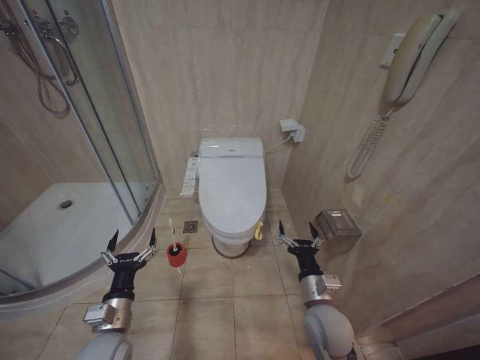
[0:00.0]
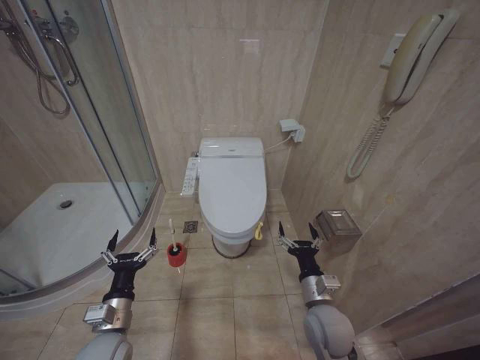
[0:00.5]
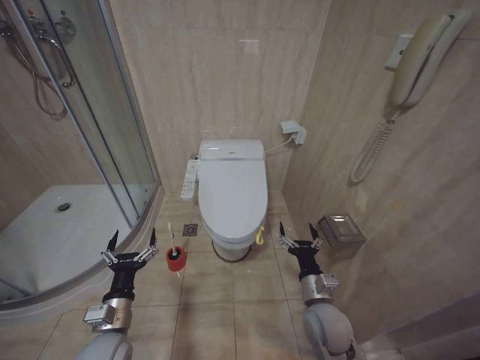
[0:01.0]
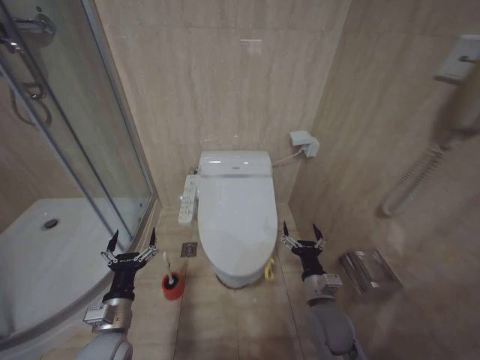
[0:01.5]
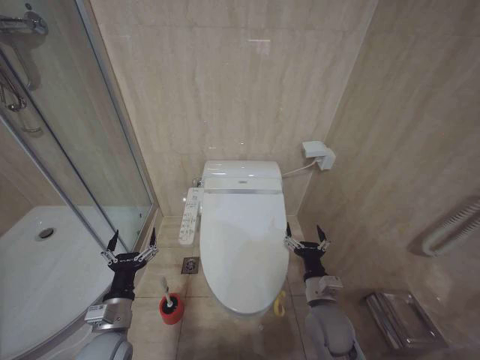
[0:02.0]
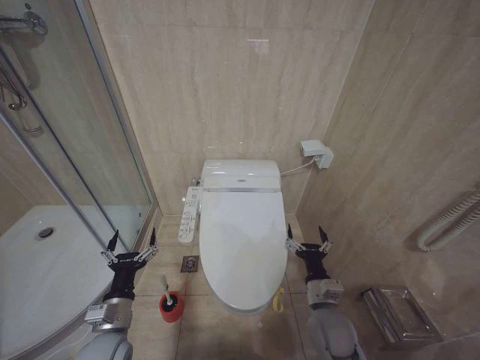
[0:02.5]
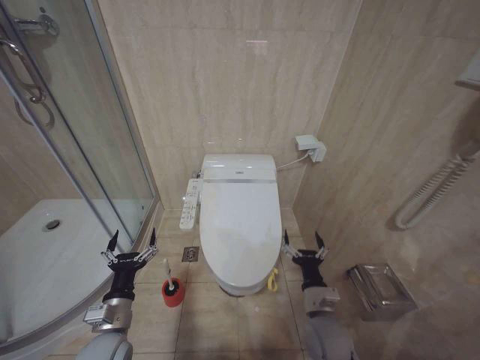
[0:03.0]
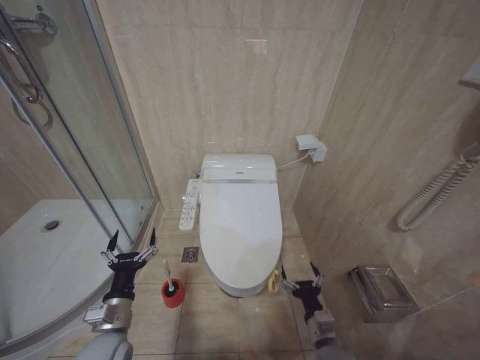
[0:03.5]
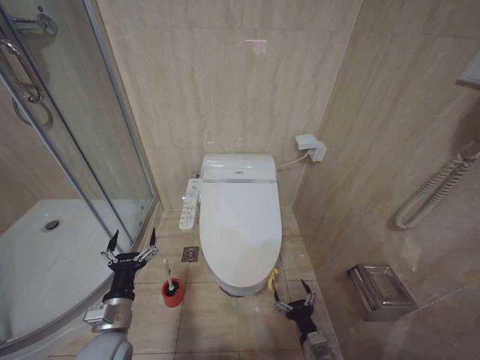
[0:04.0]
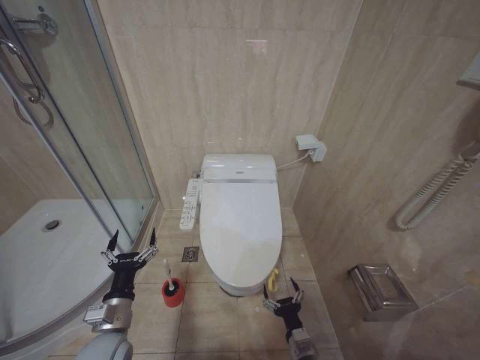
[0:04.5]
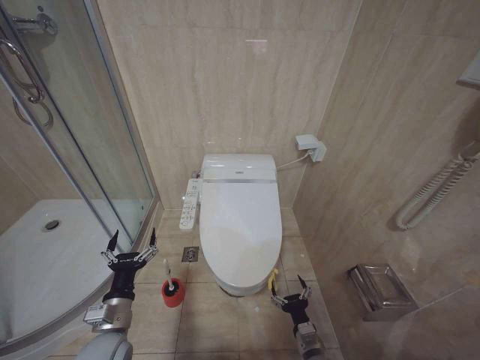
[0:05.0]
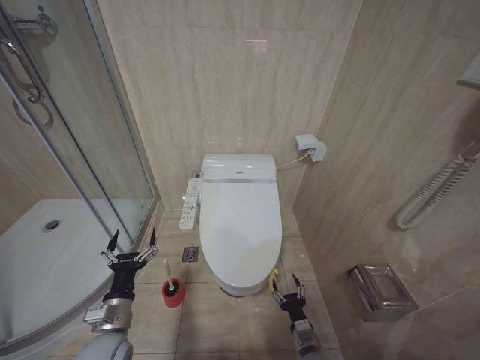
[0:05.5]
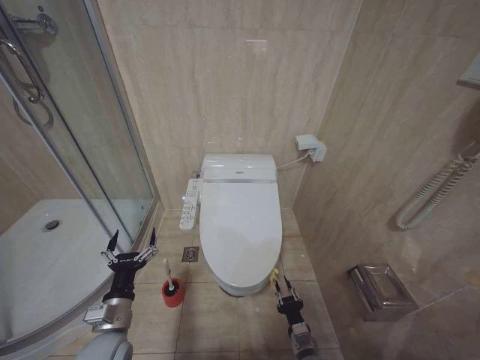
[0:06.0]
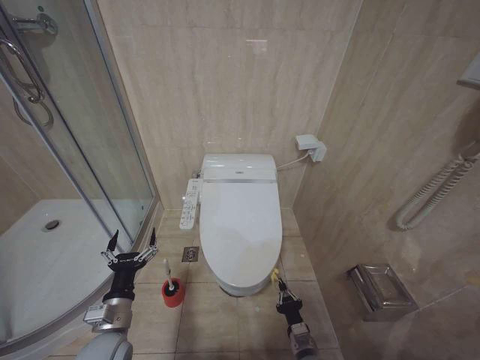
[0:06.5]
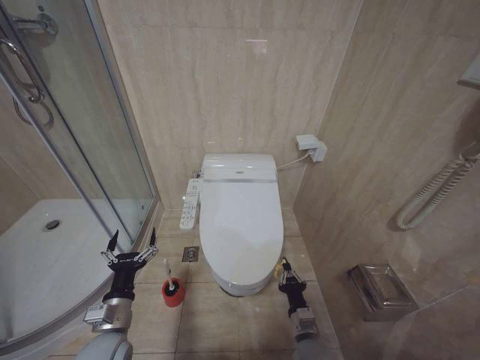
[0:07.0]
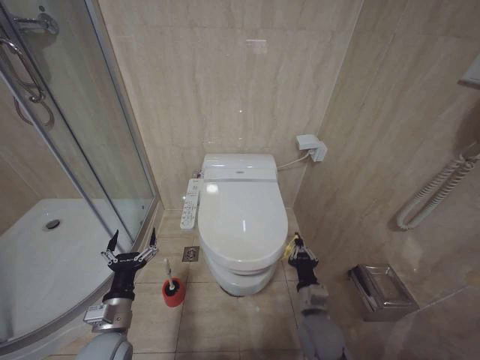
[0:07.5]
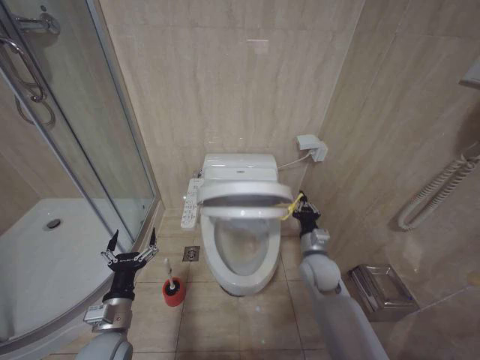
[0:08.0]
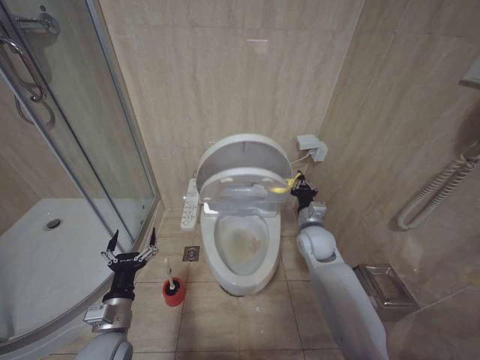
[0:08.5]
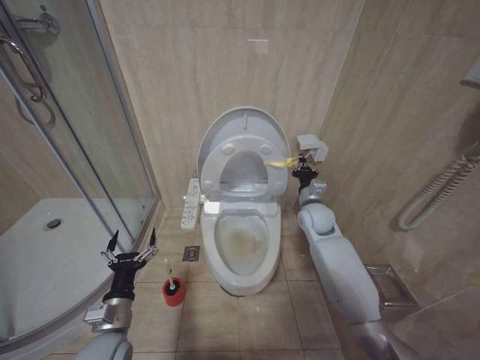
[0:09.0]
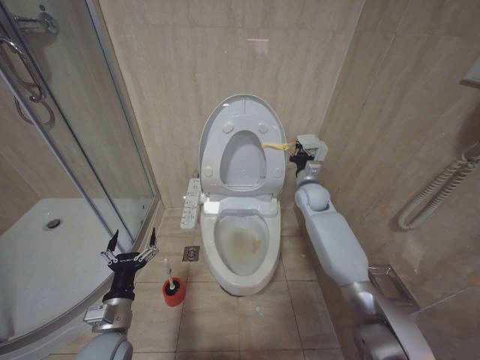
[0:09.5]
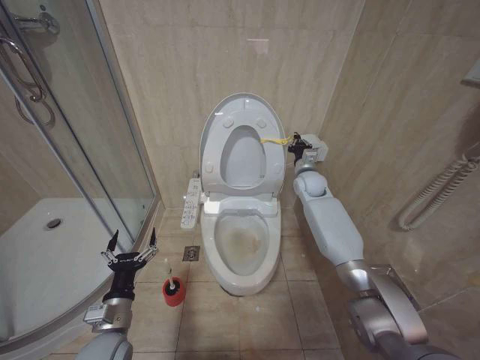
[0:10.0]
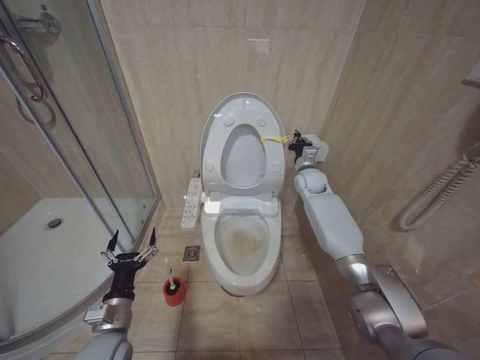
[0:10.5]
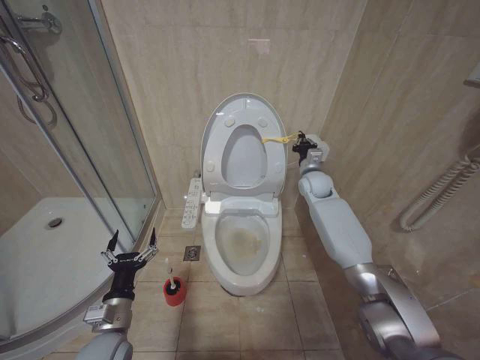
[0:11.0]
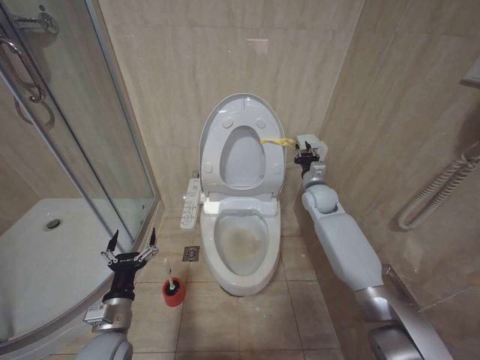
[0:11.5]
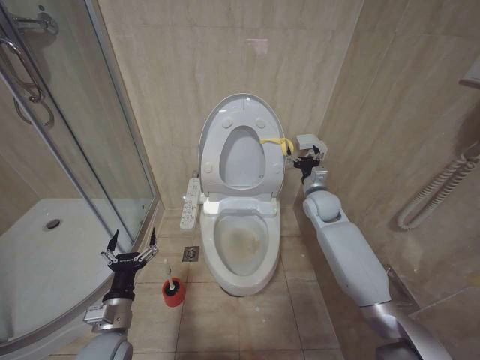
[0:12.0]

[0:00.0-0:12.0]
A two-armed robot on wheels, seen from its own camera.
Task of the whole recording: Open the toilet lid, clean the toilet bowl with a toilet brush, close the toilet lid, and flush.
2.0 to 4.0 s: The right gripper goes approximately 15 cm downward and backward.
4.0 to 6.0 s: The right gripper shifts by approximately 5 cm, and closes its fingers.
6.0 to 8.0 s: The right gripper shifts about 25 cm upward and forward, and closes its fingers.
8.0 to 10.0 s: The right gripper moves forward and upward, some 25 cm.
10.0 to 12.0 s: The right gripper goes roughly 5 cm backward, and opens.

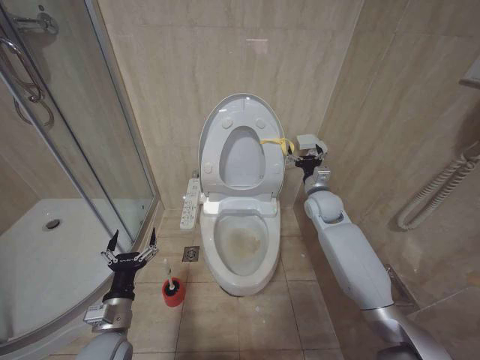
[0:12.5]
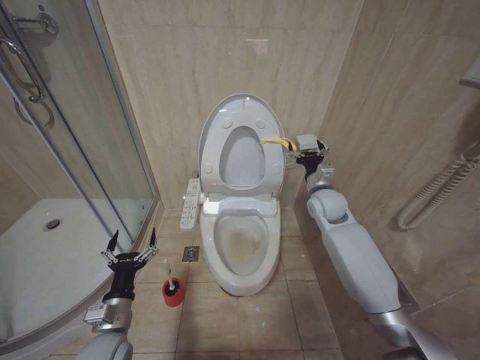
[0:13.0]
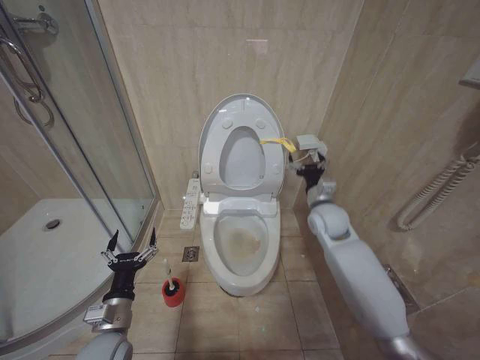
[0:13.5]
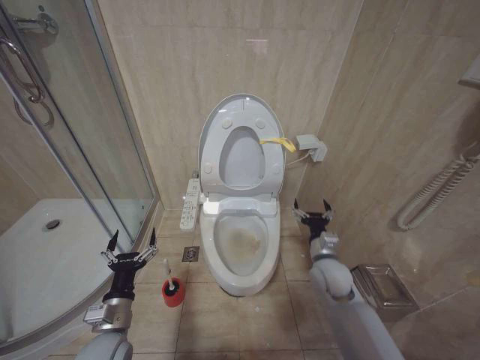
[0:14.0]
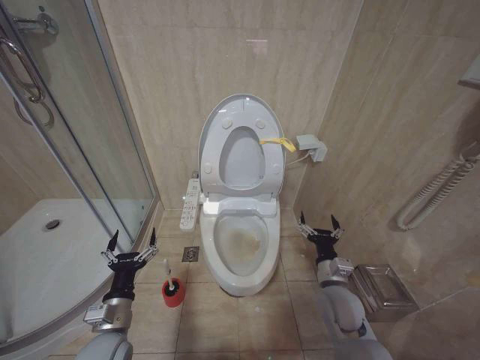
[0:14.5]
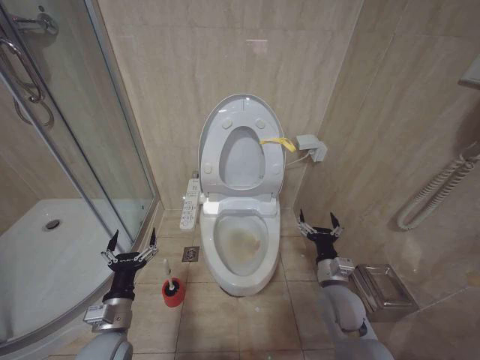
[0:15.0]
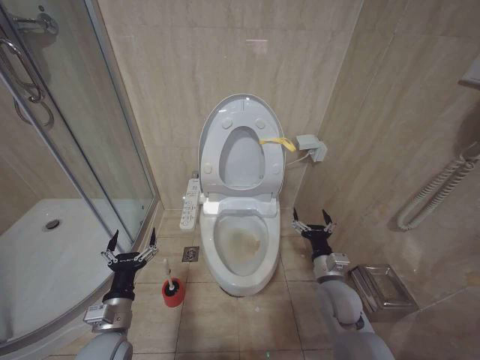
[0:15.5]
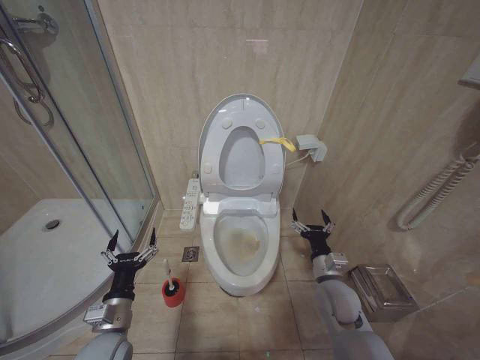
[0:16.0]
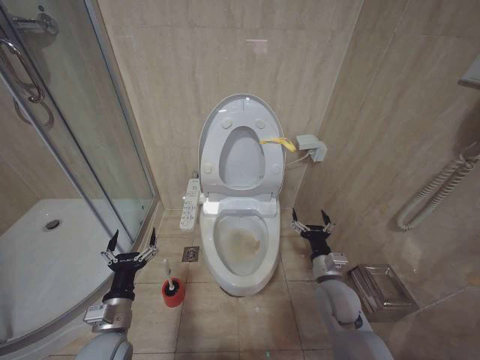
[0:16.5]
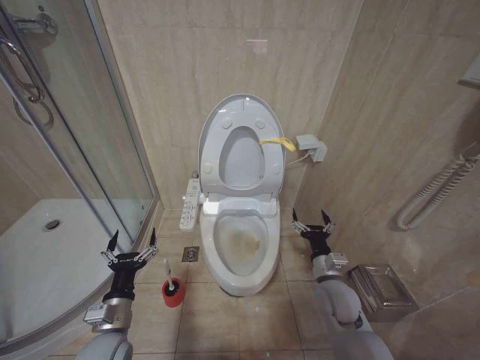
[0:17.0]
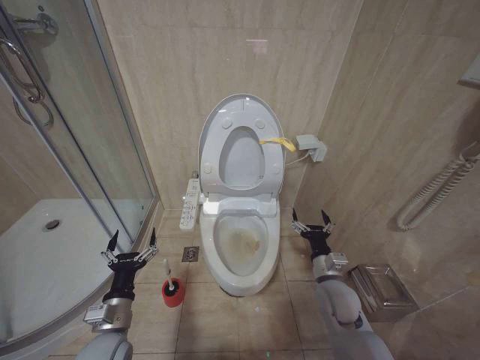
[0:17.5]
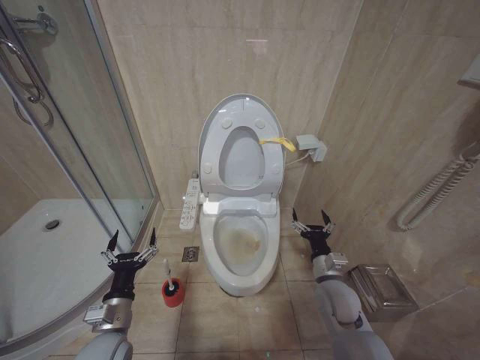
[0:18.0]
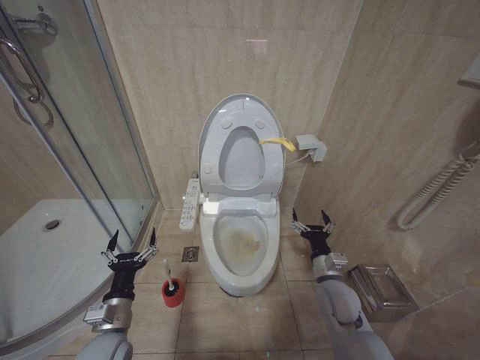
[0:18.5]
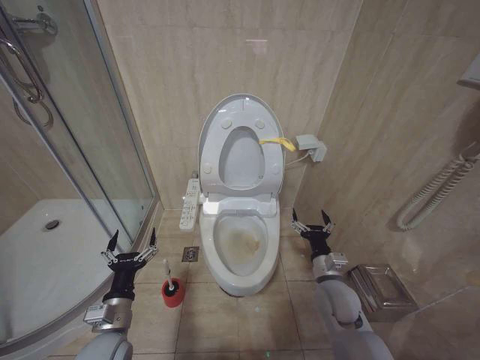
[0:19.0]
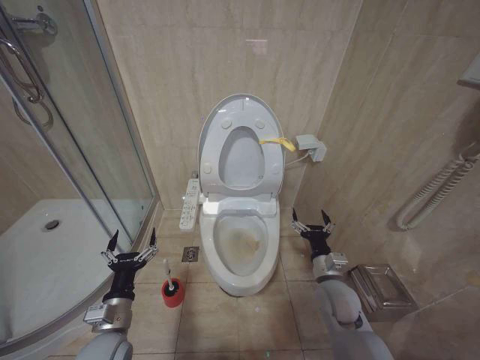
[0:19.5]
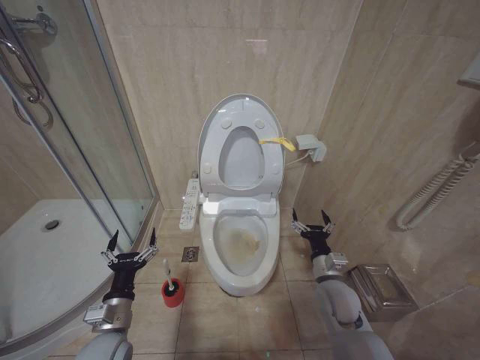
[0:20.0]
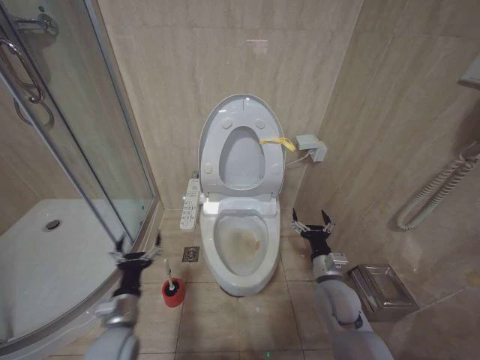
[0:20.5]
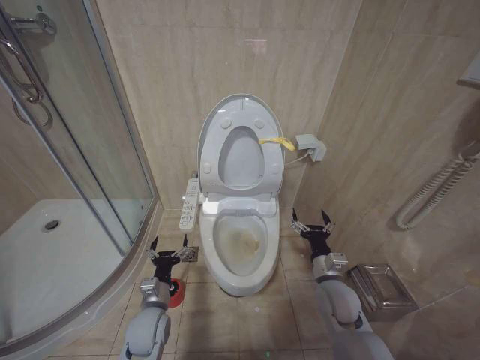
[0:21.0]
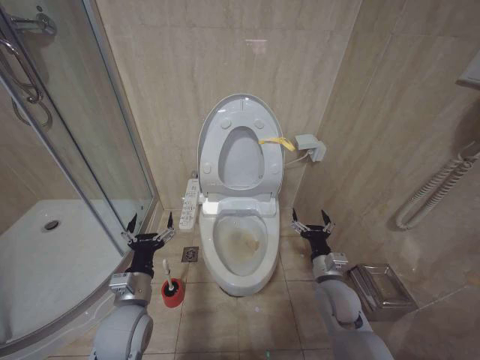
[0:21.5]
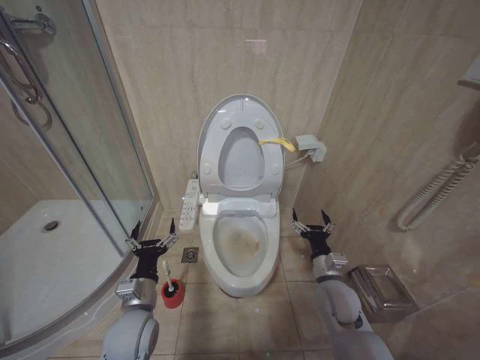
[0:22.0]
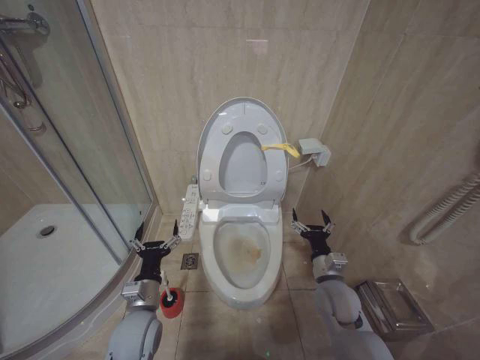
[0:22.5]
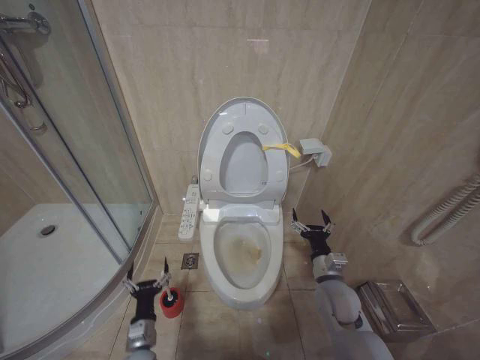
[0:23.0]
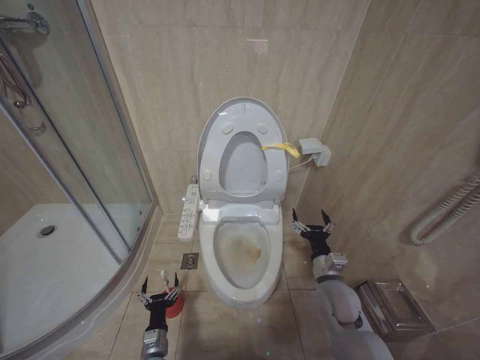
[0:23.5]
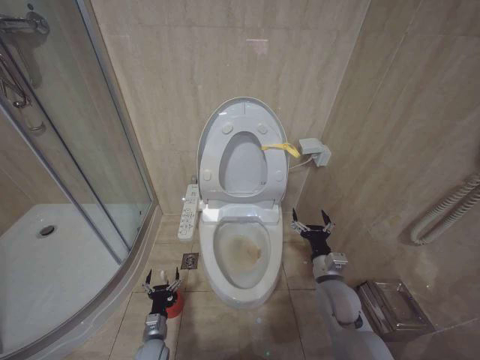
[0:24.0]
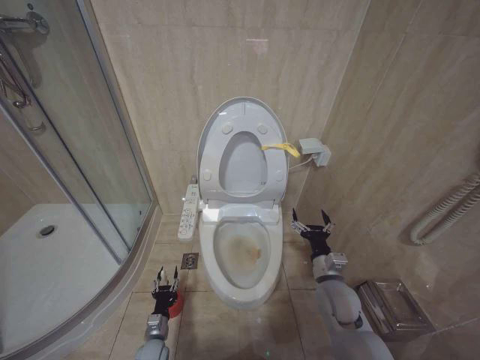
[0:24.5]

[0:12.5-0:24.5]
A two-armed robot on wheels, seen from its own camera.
Task of the whole recording: Open the toilet lid, clean the toilet bowl with a toilet brush, close the toilet lid, and flush.
12.5 to 14.5 s: The right gripper shifts about 25 cm backward and downward.
14.5 to 16.5 s: The grippers move only a little.
16.5 to 20.5 s: The two grippers keep their place.
20.5 to 22.5 s: The left gripper goes up and down, about 10 cm each way, reversing 2 times.
22.5 to 24.5 s: The left gripper shifts roughly 30 cm downward.

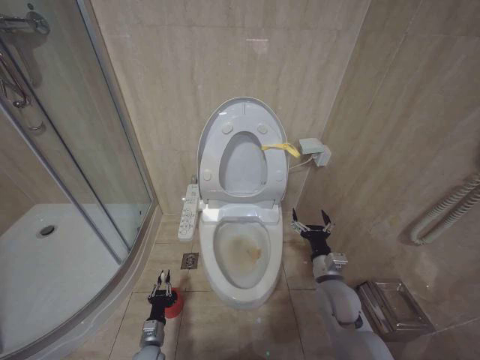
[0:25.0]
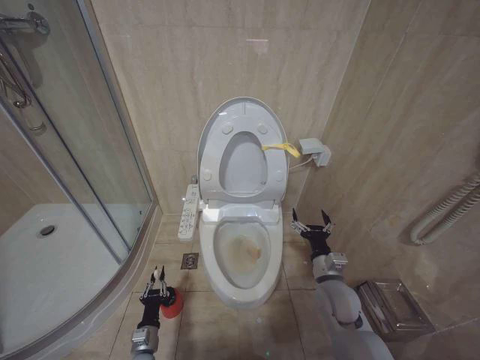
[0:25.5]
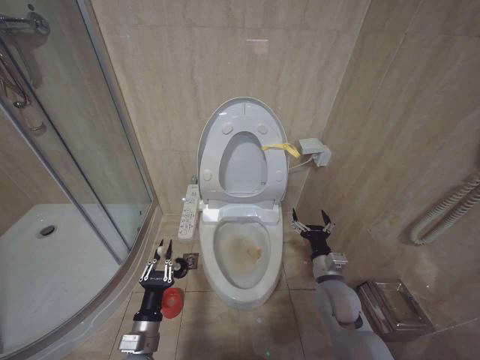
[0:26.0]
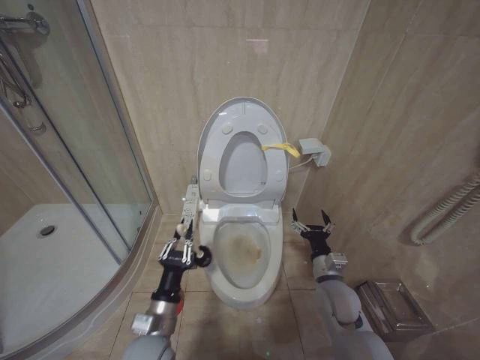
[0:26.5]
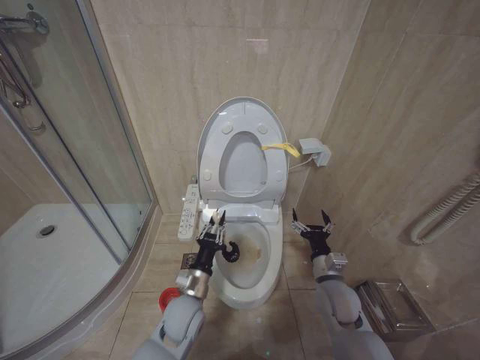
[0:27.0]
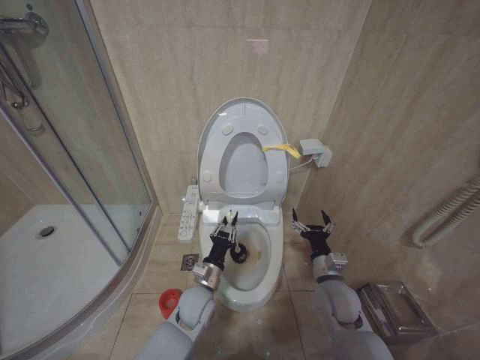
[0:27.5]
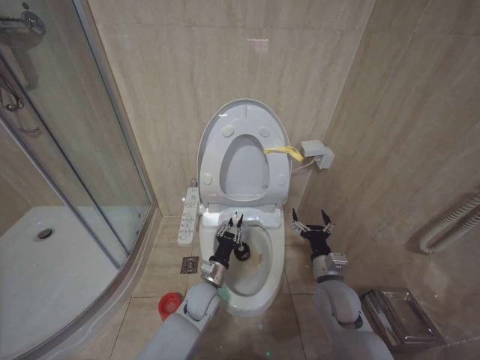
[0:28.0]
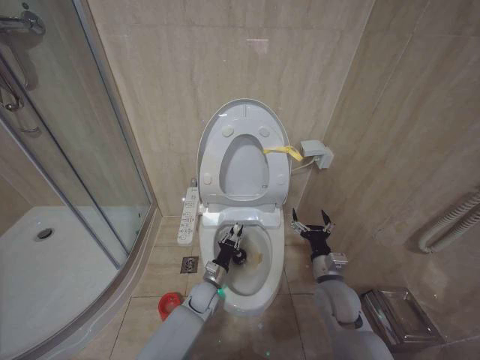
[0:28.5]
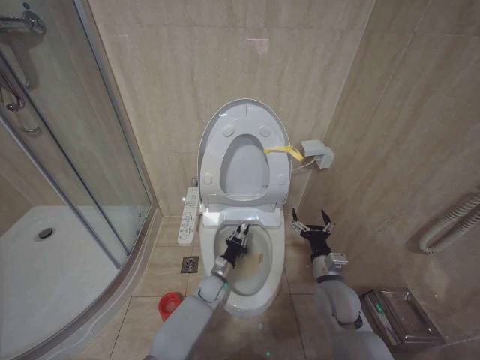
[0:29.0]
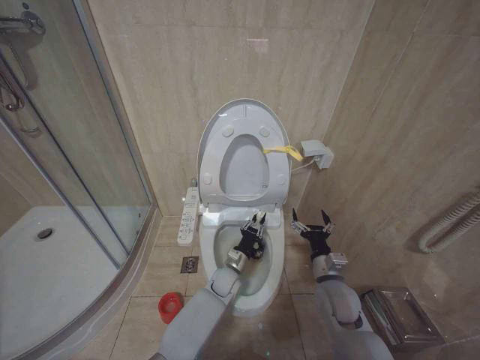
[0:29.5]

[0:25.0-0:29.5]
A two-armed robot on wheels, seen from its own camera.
Task of the whole recording: Open the toilet lid, clean the toilet bowl with a toilet brush, close the toilet lid, and flush.
25.0 to 27.0 s: The left gripper heads upward and to the right, covering about 30 cm.
27.0 to 29.5 s: The left gripper moves forward, to the right and downward, about 20 cm.
